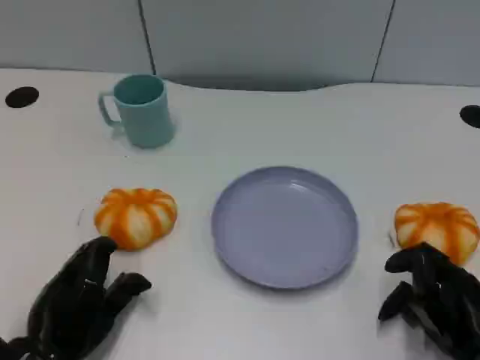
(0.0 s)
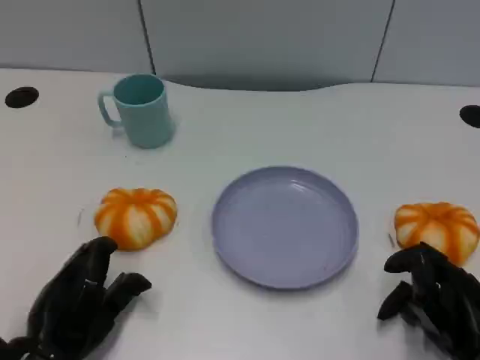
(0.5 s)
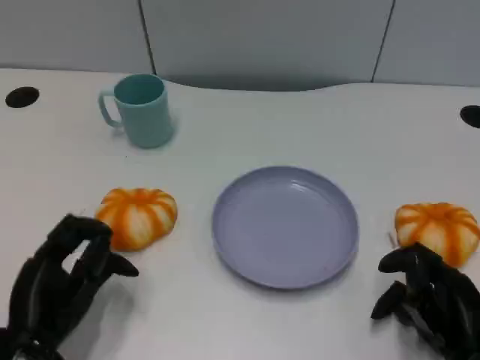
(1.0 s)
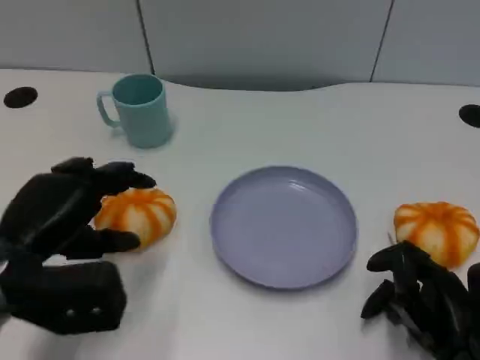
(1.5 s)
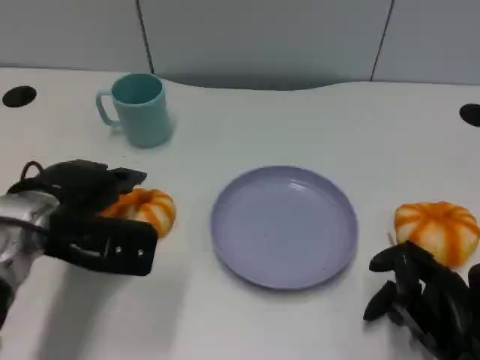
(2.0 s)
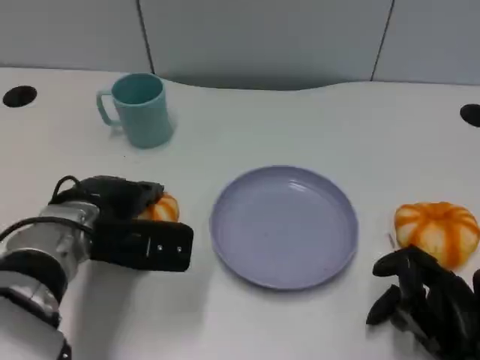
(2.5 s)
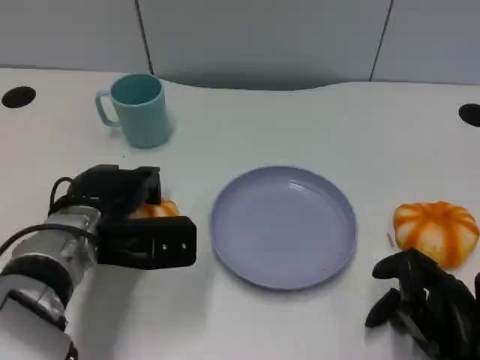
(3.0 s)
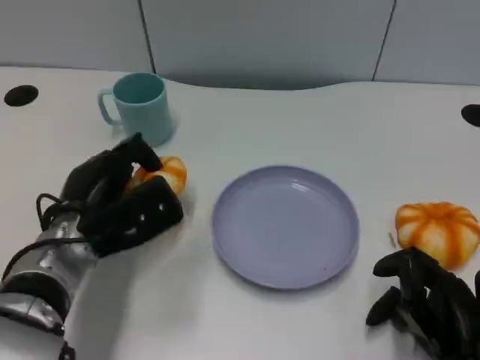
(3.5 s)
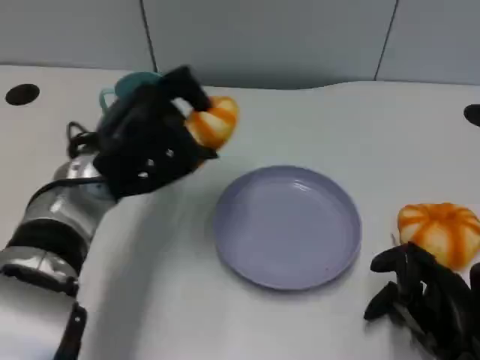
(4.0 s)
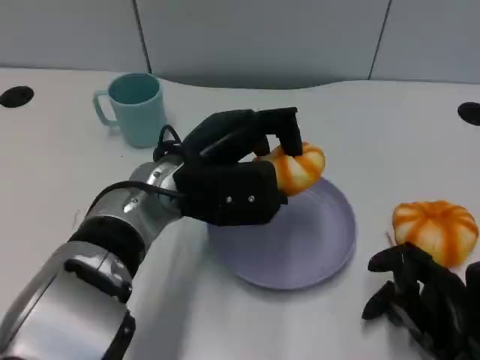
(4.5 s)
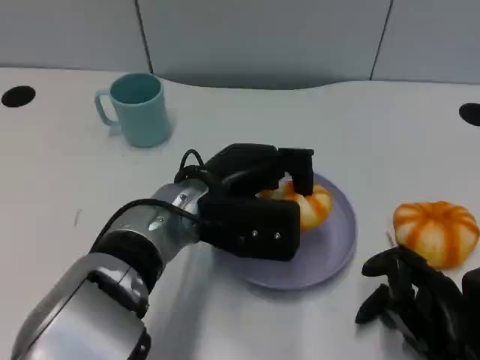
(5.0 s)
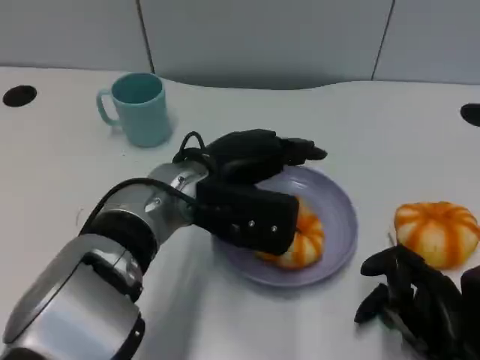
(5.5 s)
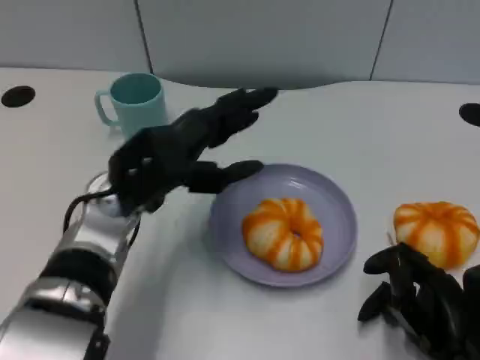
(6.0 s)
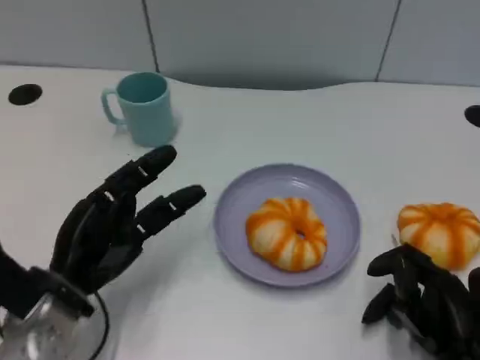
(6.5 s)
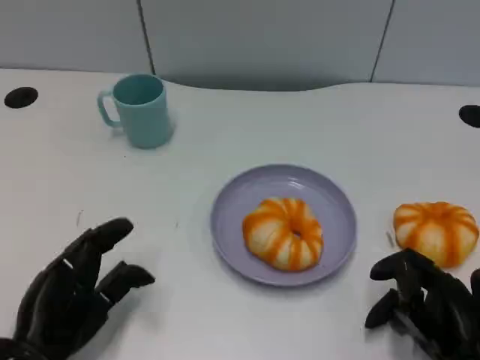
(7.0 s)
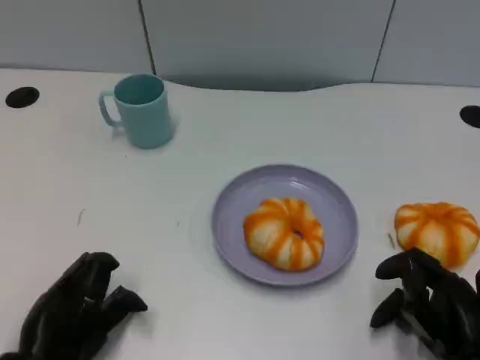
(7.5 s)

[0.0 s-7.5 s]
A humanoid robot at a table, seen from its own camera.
Task of the whole recording: Grasp the bread from the table and place it into the plate.
0.0 to 2.0 s: The left hand heads forward and upward, covering roughly 15 cm.
2.0 to 4.0 s: The left hand shifts approximately 5 cm to the right.
4.0 to 5.5 s: The left hand is displaced to the right by some 5 cm.
5.5 to 7.5 s: The left hand shifts approximately 25 cm to the left, backward and downward.

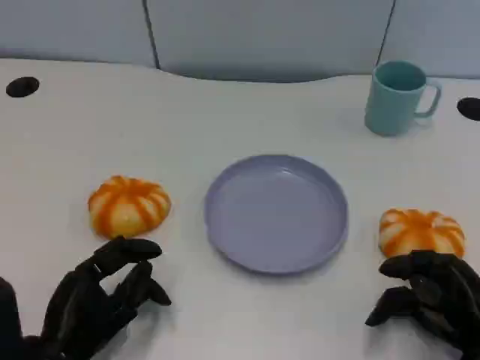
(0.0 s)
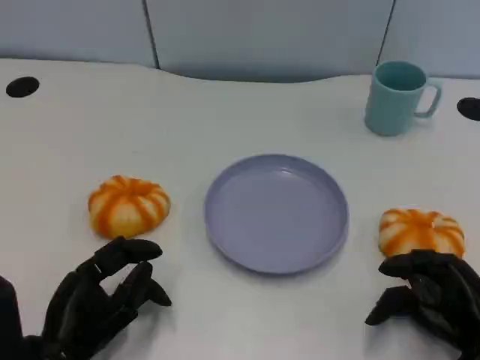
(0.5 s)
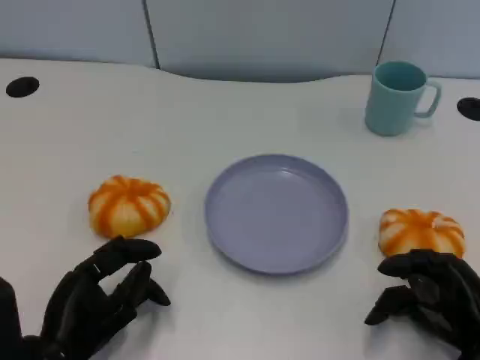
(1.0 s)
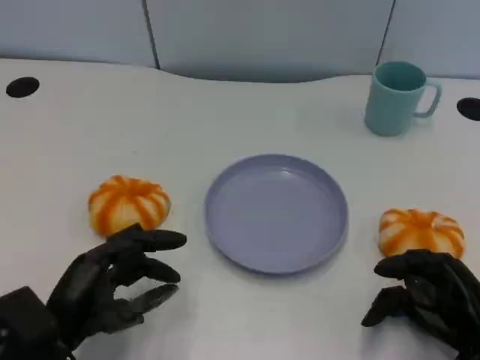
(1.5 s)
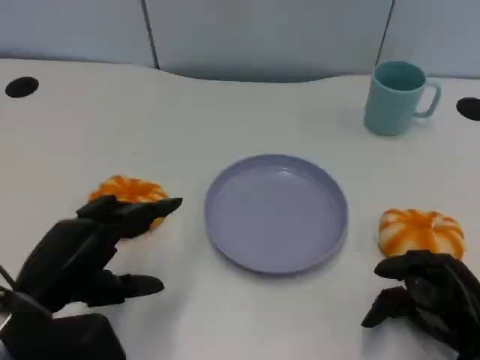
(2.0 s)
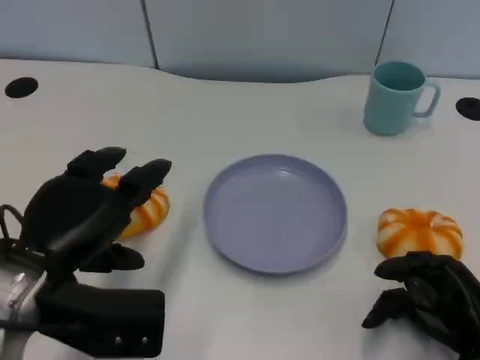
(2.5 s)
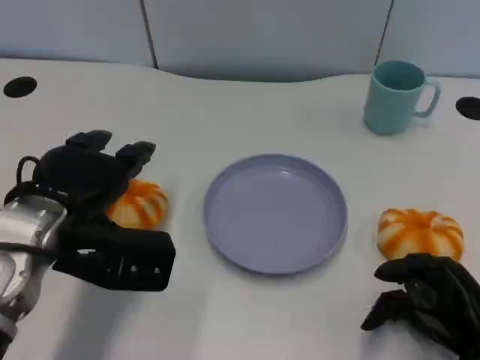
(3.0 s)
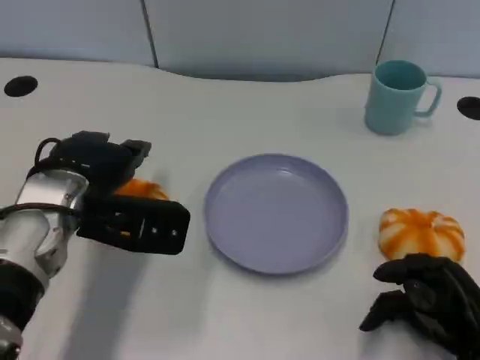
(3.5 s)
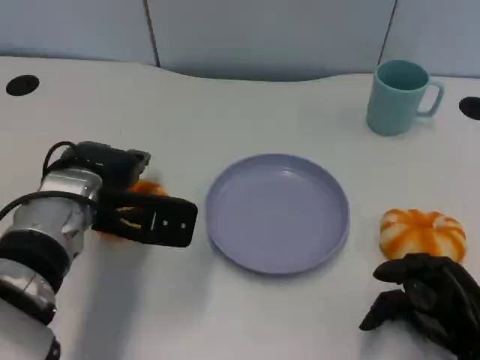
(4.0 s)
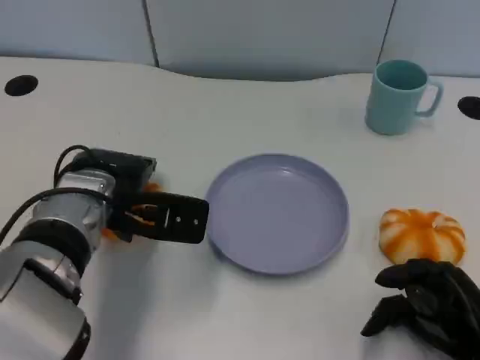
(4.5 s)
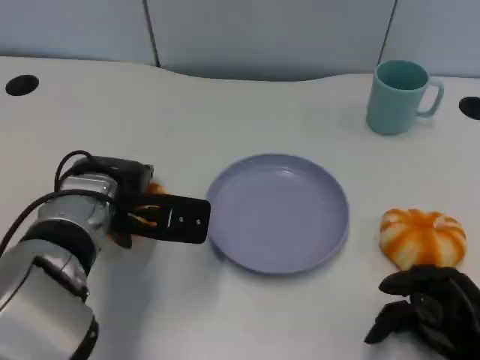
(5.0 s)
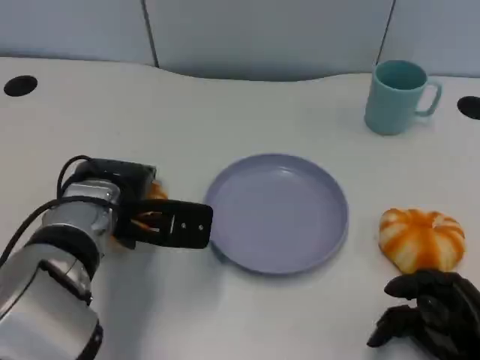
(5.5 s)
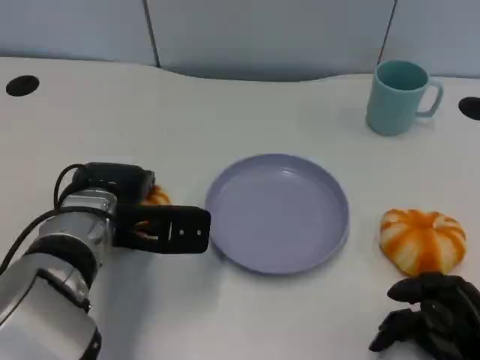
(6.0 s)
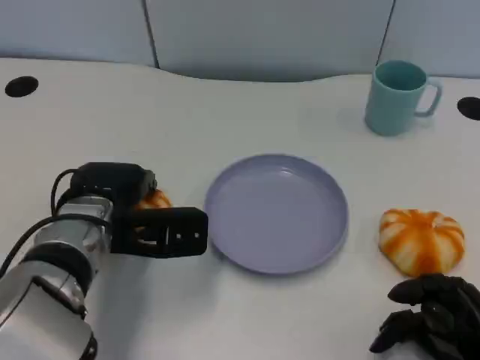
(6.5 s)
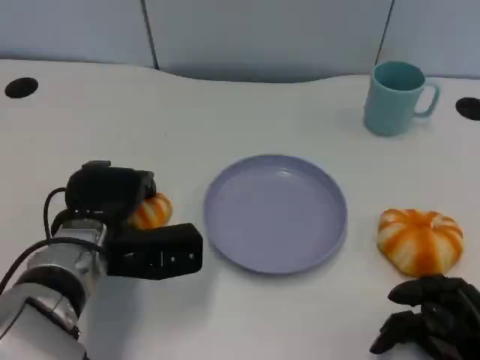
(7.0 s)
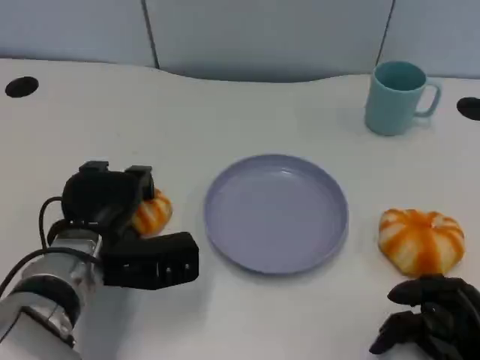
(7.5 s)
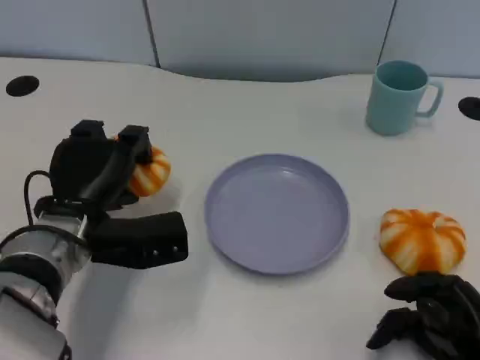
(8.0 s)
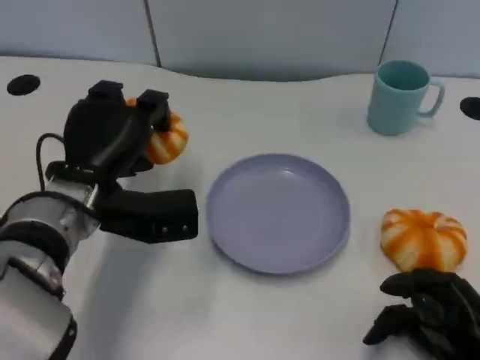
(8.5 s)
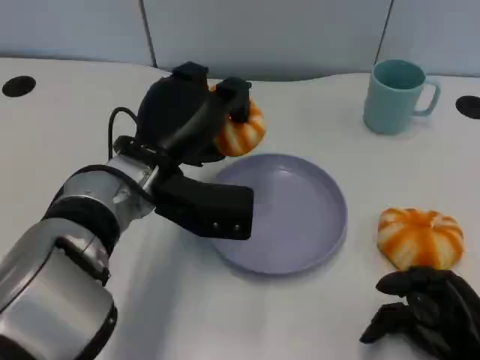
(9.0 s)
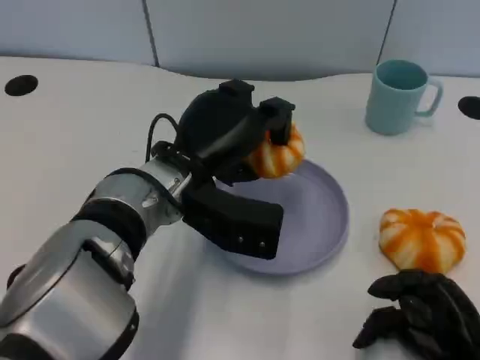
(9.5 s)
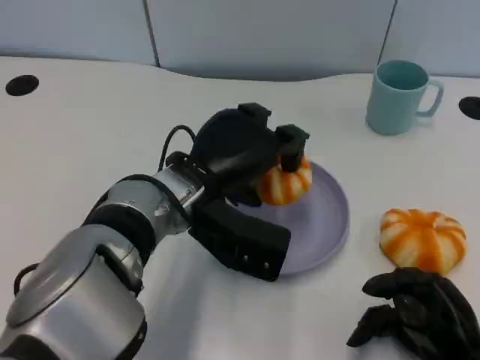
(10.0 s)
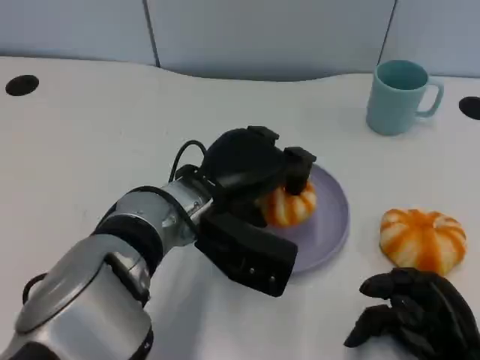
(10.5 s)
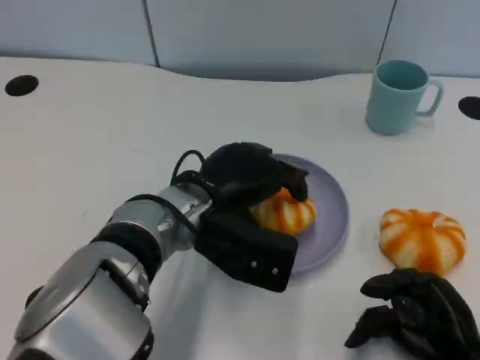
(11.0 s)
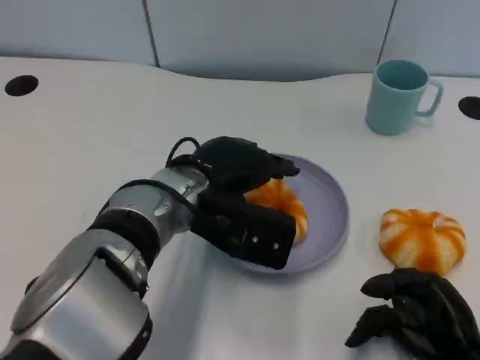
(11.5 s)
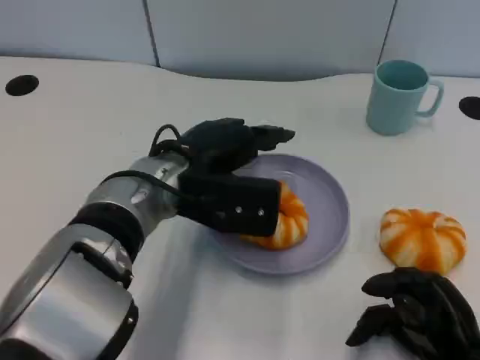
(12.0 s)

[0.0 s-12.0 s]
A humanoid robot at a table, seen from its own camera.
Task of the whole recording: Grasp the bread from the table and place it into the plate.
0.0 to 2.0 s: The left hand shifts some 10 cm upward.
2.0 to 4.0 s: The left hand is displaced forward and to the right by some 15 cm.
4.0 to 6.0 s: The hands stay close to where they were, moving slightly.
8.0 to 10.0 s: The left hand heads to the right, covering roughly 10 cm.

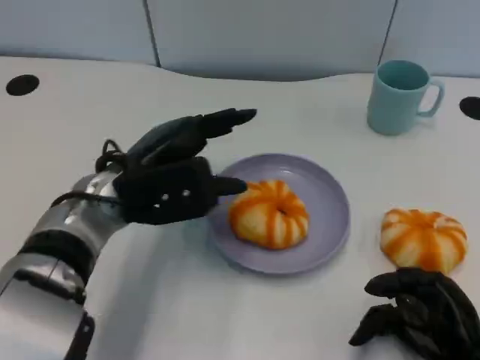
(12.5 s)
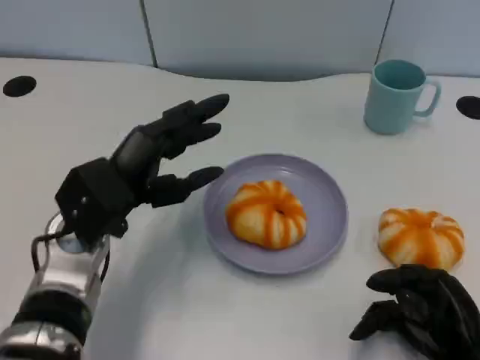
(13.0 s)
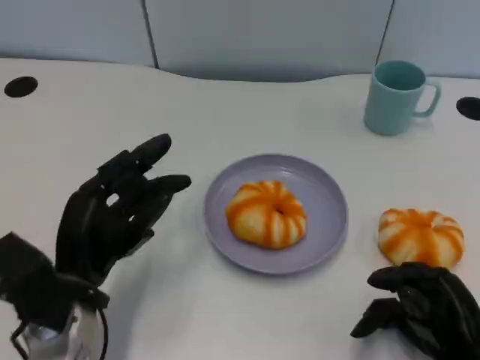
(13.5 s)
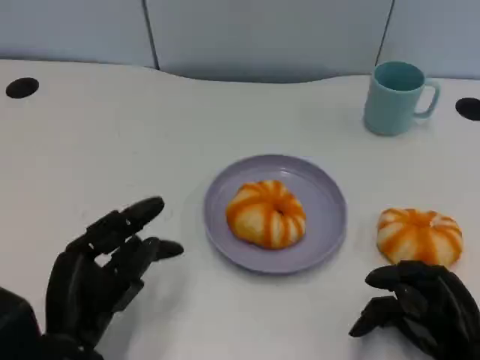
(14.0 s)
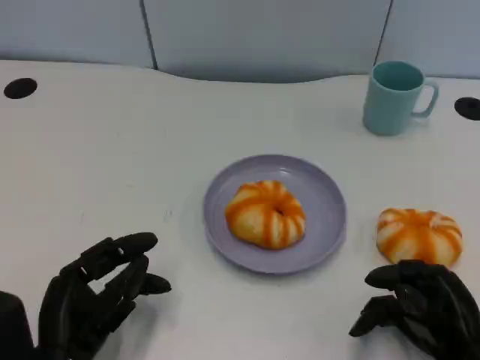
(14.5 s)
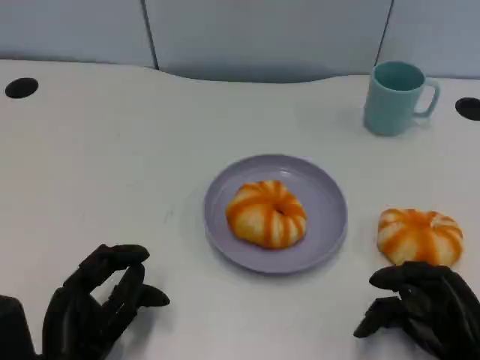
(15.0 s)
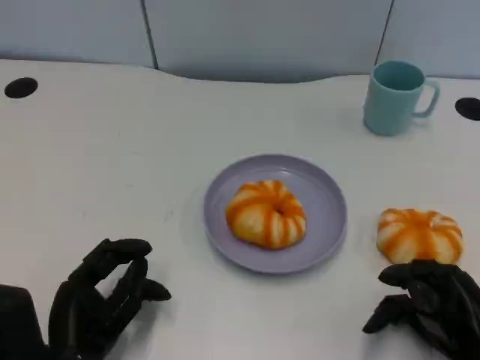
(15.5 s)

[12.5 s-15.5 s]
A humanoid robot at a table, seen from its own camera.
Task of the whole recording: Grasp the bread from the table and place it into the plate.
12.5 to 14.0 s: The left hand moves backward, downward and to the left, roughly 15 cm.
14.0 to 15.5 s: There are only small adjustments of the hands.

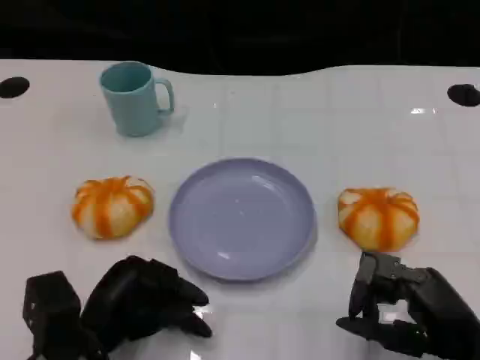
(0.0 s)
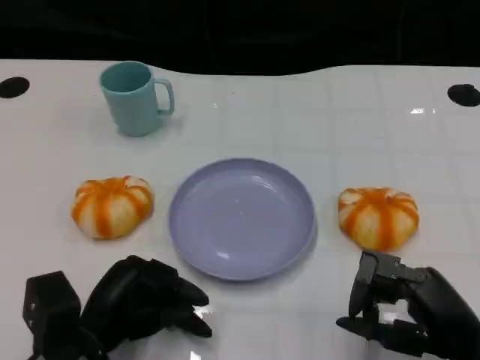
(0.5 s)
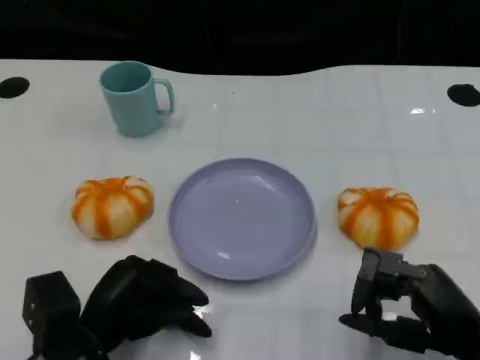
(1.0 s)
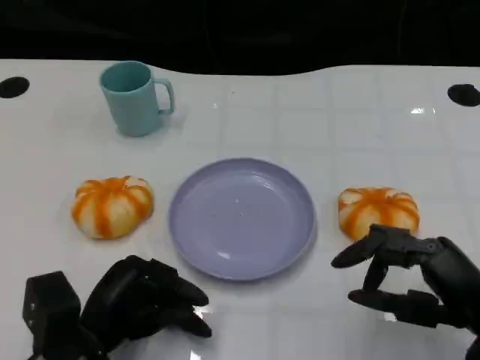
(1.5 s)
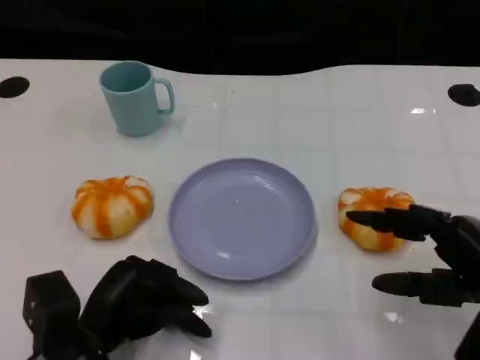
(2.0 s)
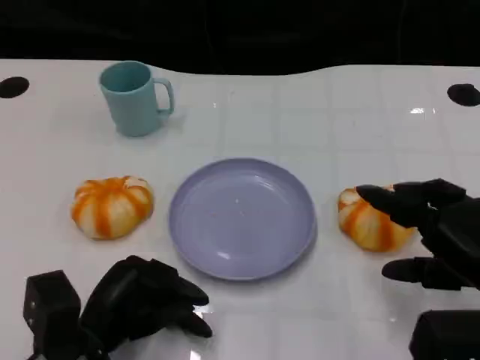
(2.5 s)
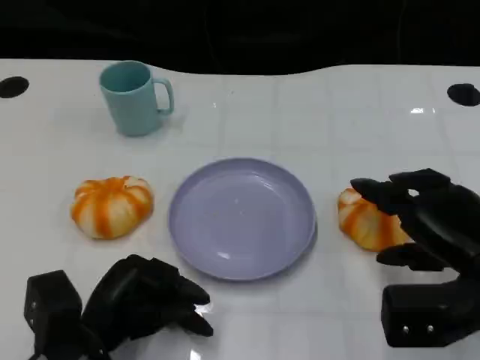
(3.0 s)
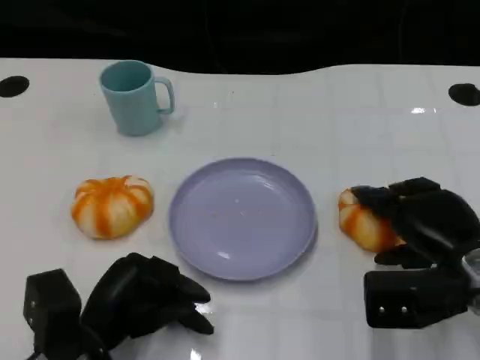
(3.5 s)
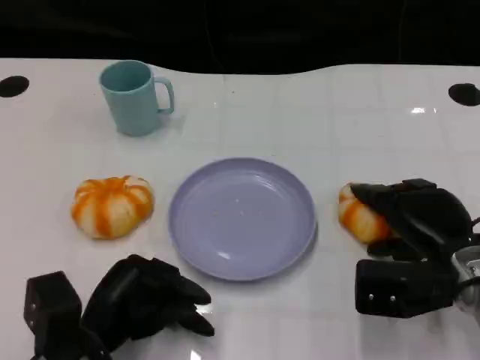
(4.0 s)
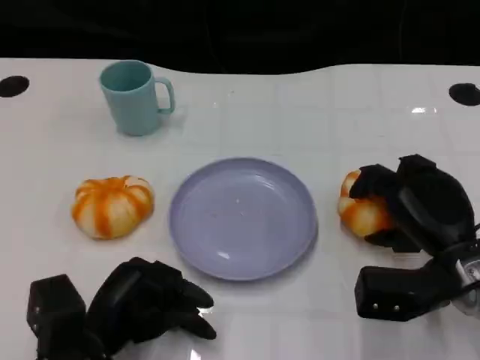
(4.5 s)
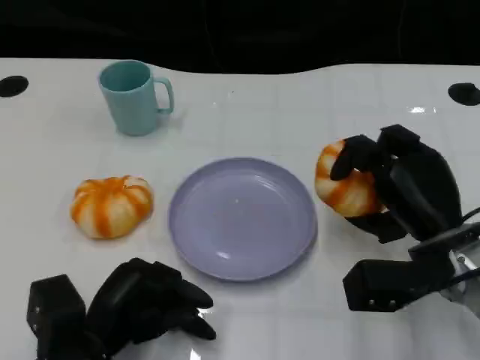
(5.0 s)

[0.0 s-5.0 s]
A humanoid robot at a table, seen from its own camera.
Task of the whole recording: Grasp the bread from the table and place it into the plate.
0.0 to 2.5 s: The right hand moves upward, some 5 cm.
2.5 to 5.0 s: The right hand goes about 10 cm forward and to the left.
